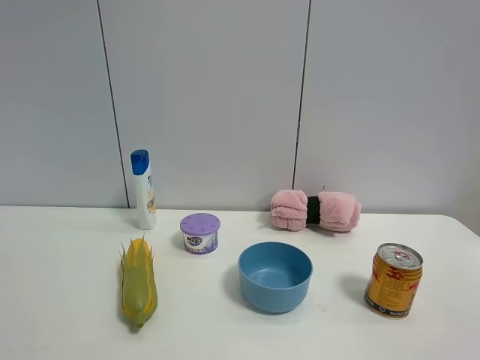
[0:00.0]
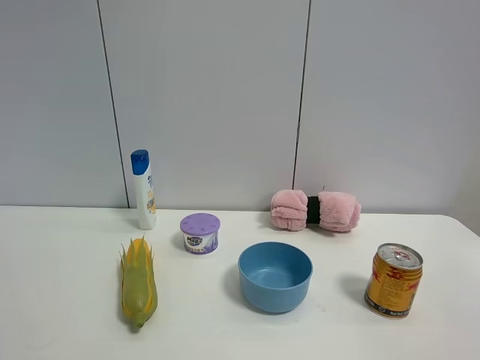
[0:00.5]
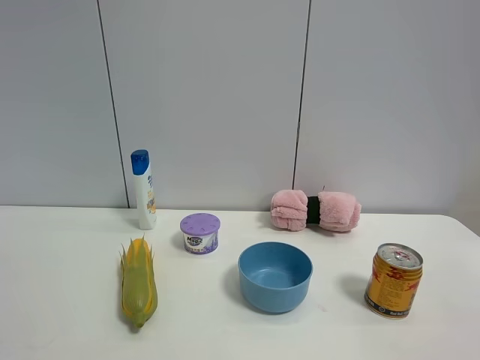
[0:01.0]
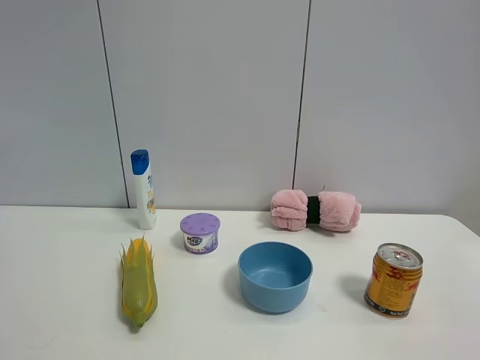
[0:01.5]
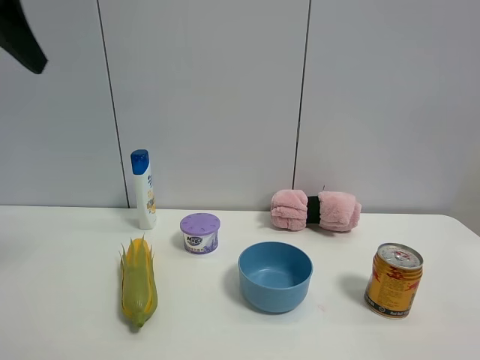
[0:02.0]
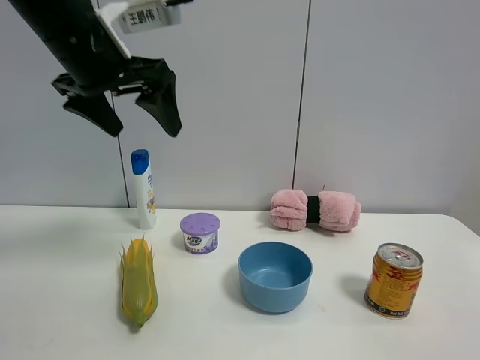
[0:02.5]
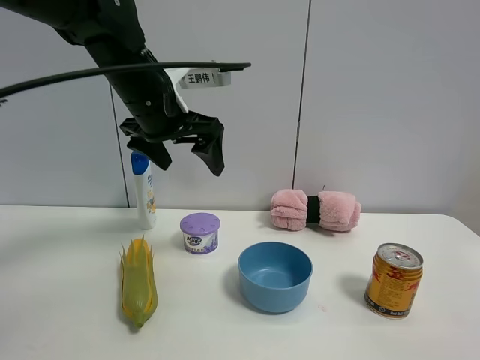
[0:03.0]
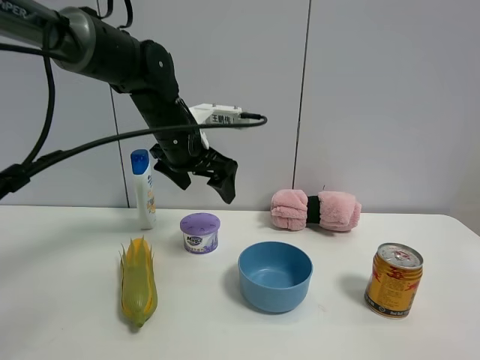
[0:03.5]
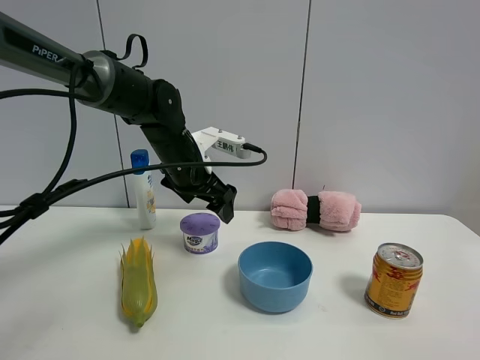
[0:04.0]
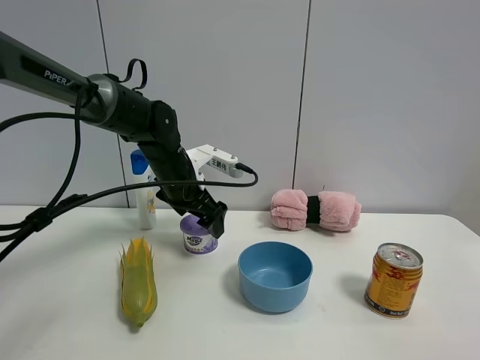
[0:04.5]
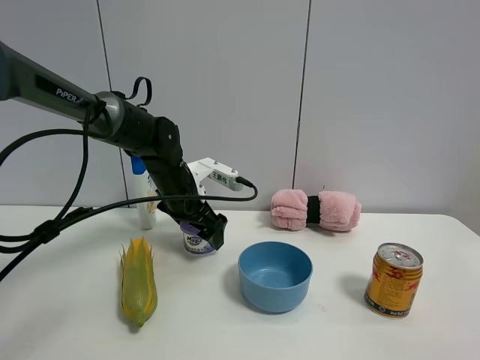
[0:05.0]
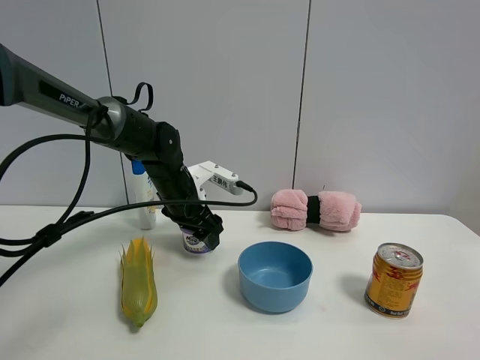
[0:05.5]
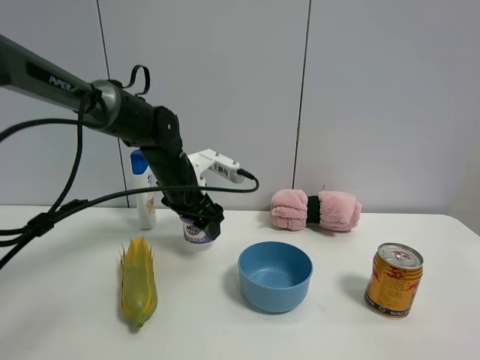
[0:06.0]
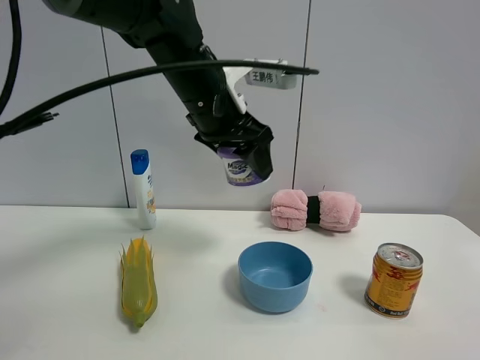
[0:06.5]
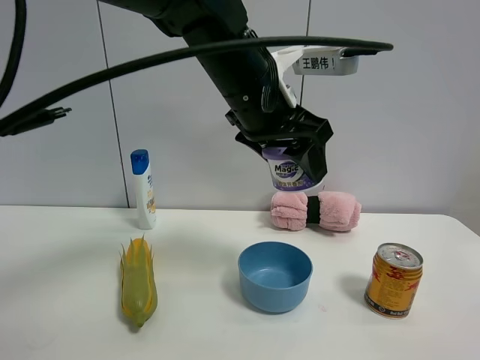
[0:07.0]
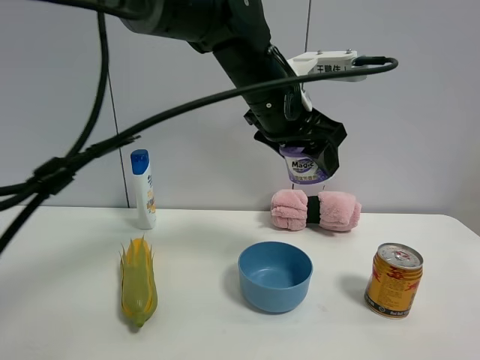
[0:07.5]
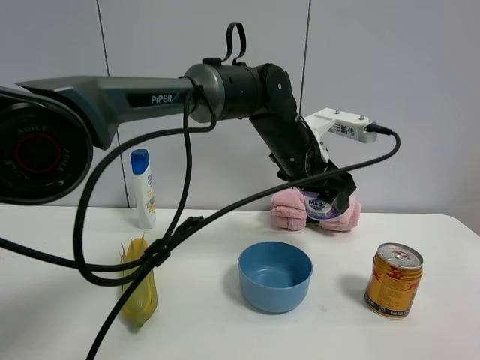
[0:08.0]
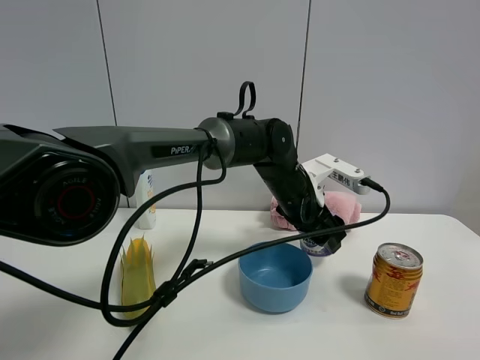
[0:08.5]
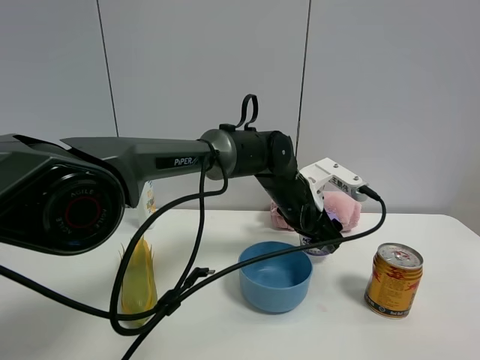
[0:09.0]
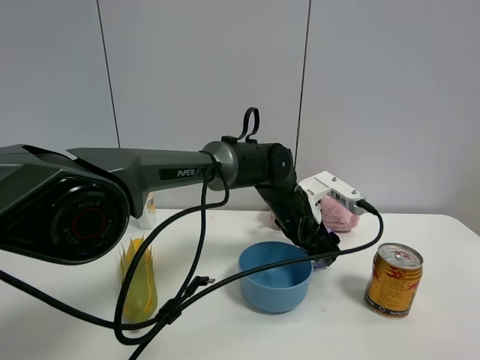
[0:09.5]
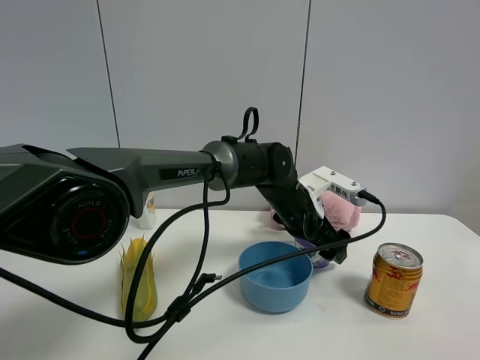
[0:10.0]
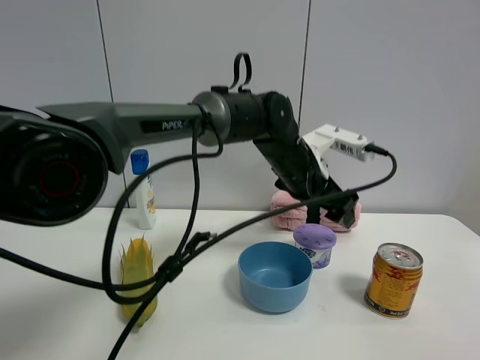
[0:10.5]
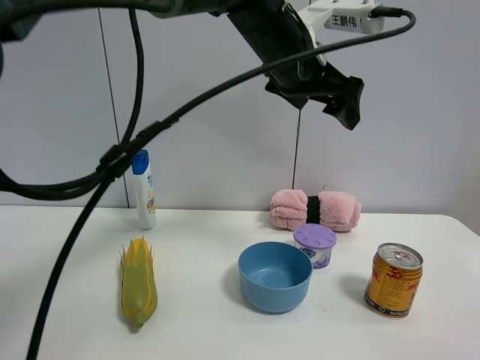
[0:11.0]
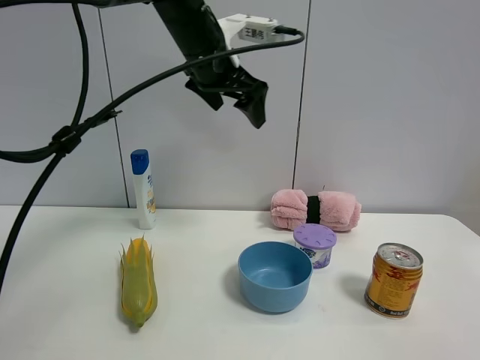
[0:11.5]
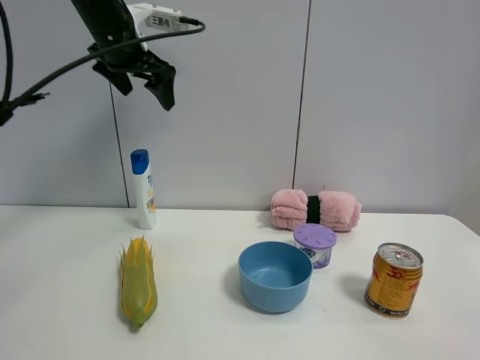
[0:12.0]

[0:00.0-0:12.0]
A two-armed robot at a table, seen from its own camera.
Task of the whole recording: the gripper move the object.
Step, 0:00.0 to 0:05.5: Grasp the Incense box with the left gripper.
Step, 0:06.0 to 0:10.5: Place the Incense box on the table with the left gripper.
0:00.0 to 0:02.0: The left gripper goes roughly 30 cm forward and upward.
0:02.0 to 0:04.0: The left gripper heads downward, forward and to the right, covering approximately 35 cm.
0:04.0 to 0:06.0: The left gripper closes up.
0:06.0 to 0:08.0: The left gripper moves to the right, some 15 cm.
0:08.0 to 0:10.0: The left gripper is displaced downward by approximately 10 cm, and opens.
0:10.0 to 0:12.0: The left gripper is displaced to the left and upward by approximately 40 cm.

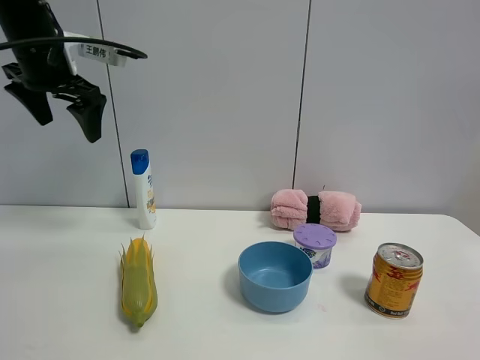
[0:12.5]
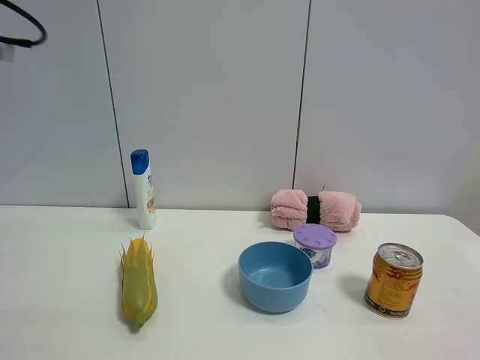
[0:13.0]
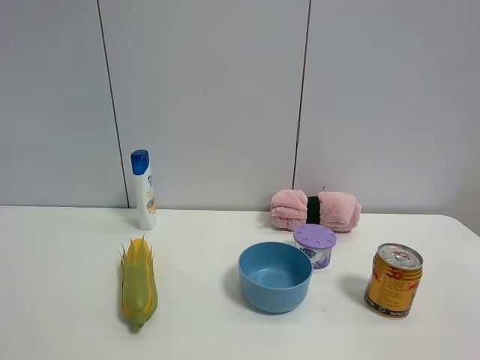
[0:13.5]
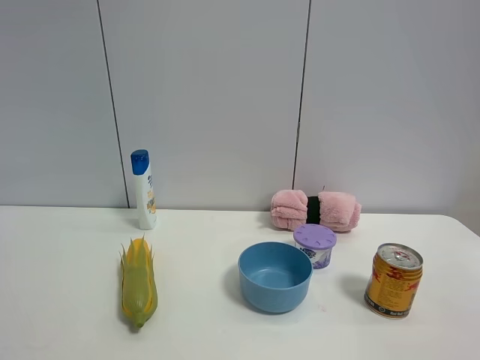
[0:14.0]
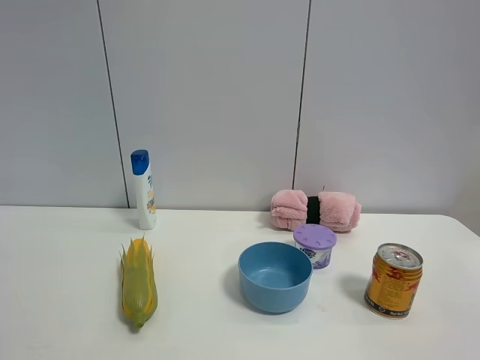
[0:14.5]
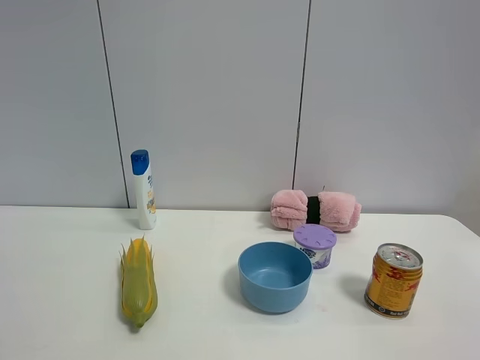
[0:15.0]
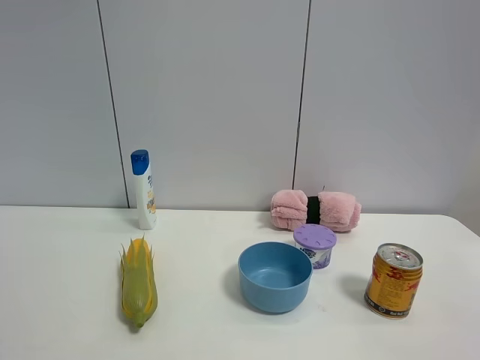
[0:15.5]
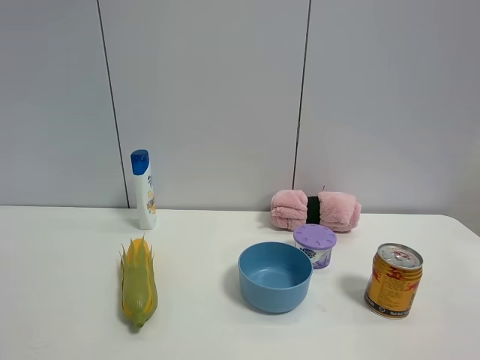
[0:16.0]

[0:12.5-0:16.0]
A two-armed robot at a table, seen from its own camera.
Task of the whole recording: the gripper move the object.
0:12.5 to 0:14.5: The left gripper shifts roughly 40 cm backward.

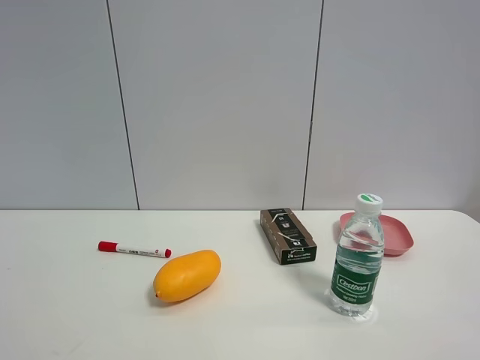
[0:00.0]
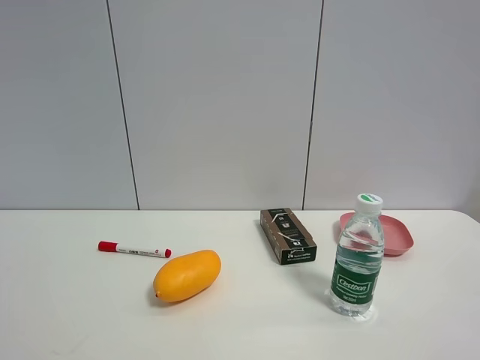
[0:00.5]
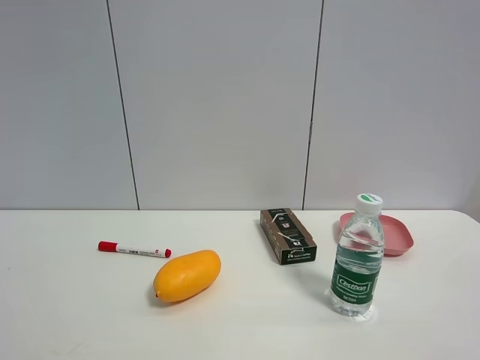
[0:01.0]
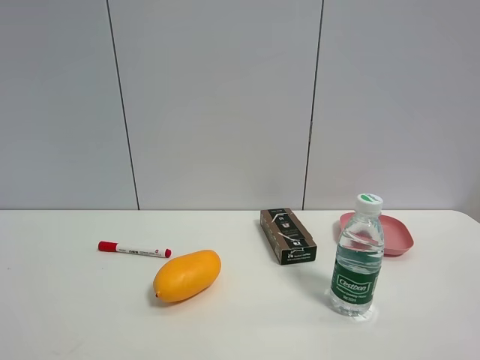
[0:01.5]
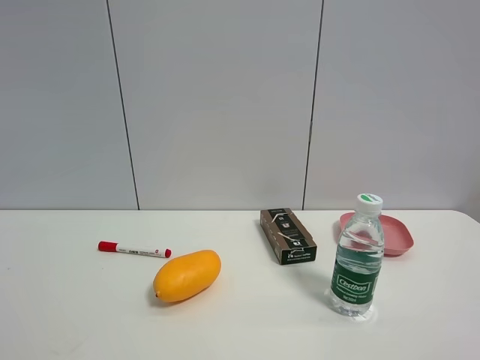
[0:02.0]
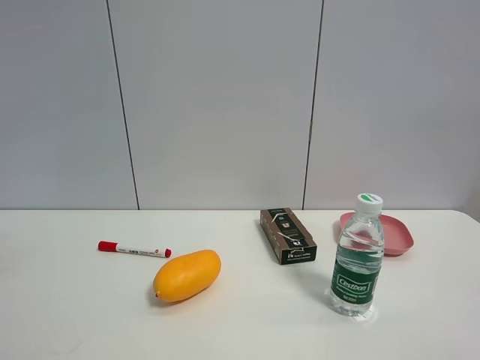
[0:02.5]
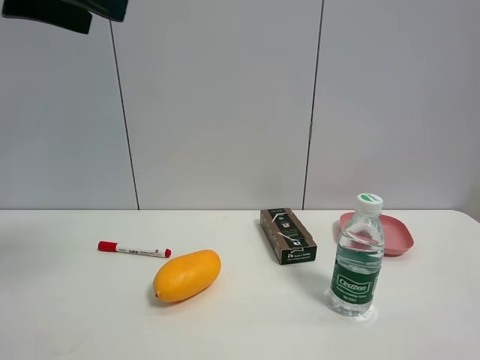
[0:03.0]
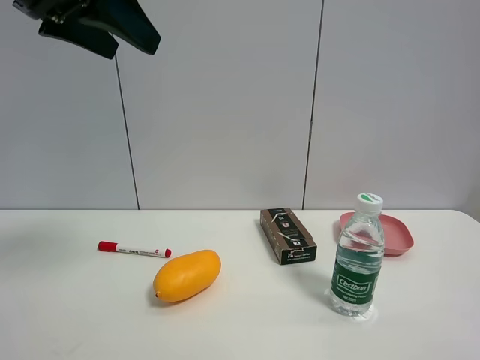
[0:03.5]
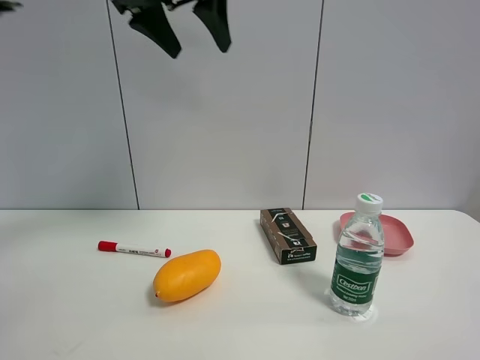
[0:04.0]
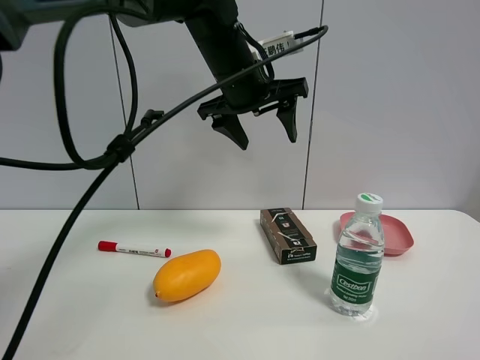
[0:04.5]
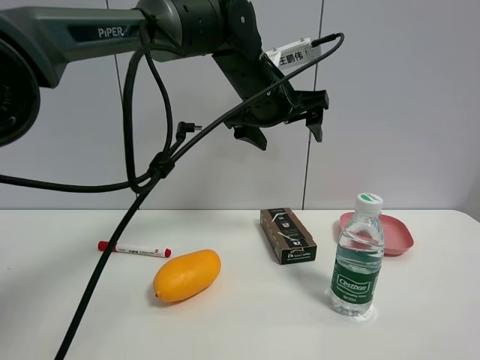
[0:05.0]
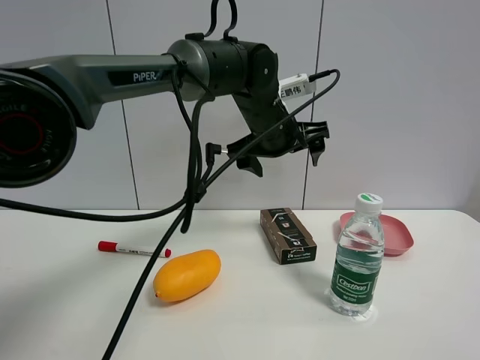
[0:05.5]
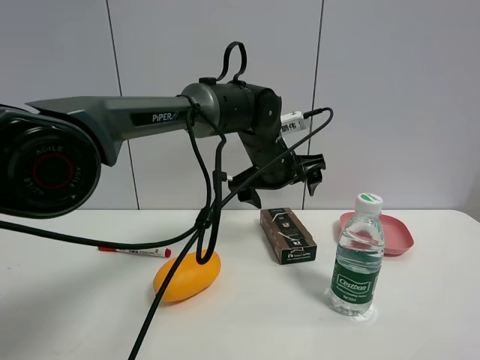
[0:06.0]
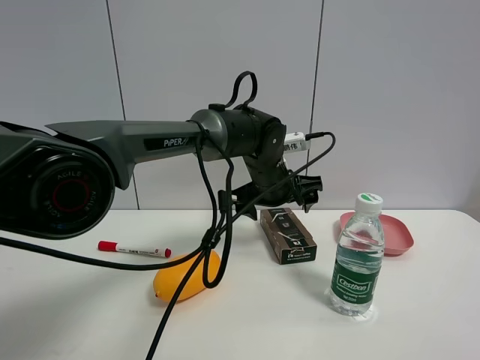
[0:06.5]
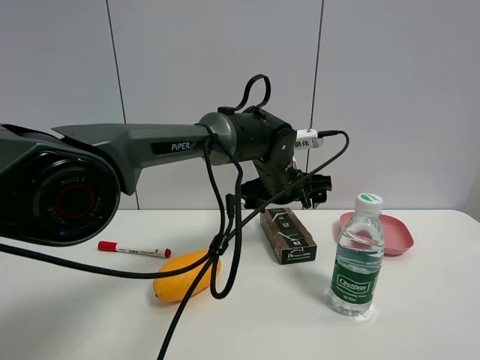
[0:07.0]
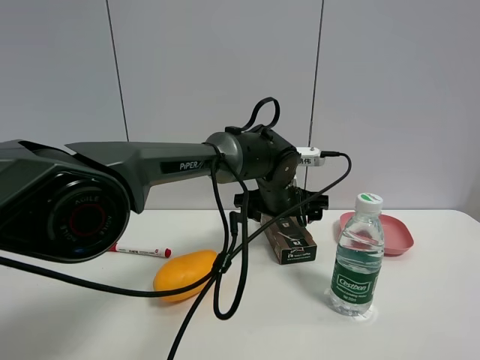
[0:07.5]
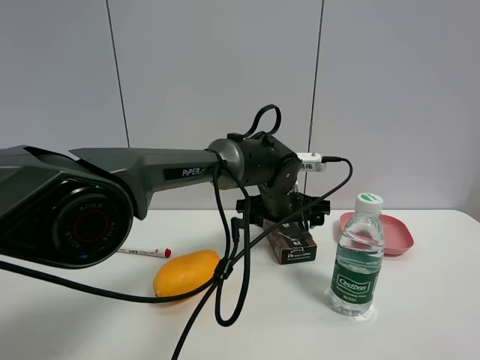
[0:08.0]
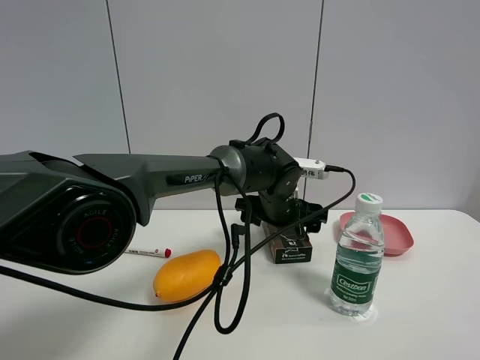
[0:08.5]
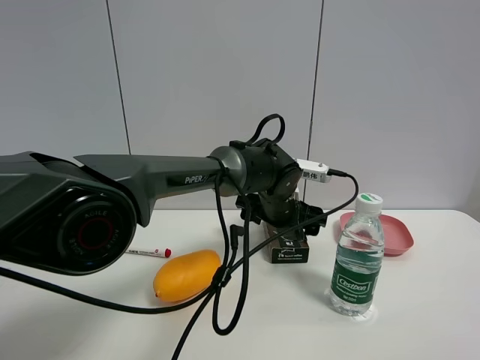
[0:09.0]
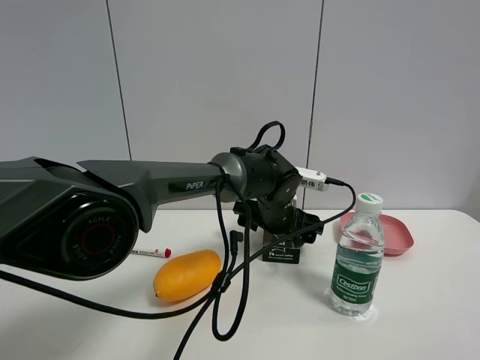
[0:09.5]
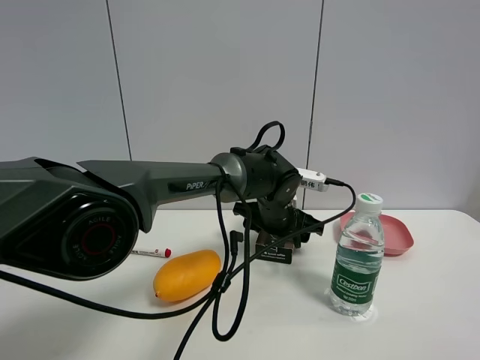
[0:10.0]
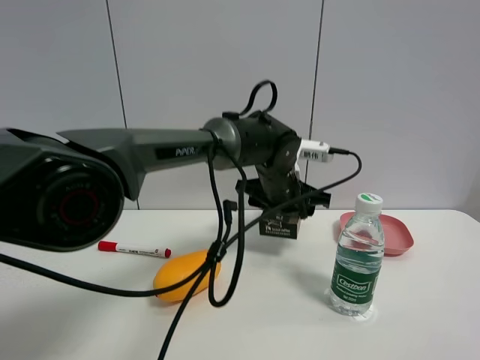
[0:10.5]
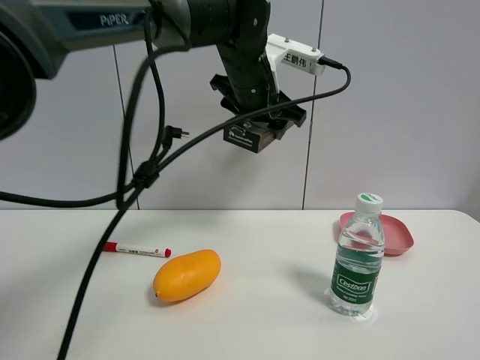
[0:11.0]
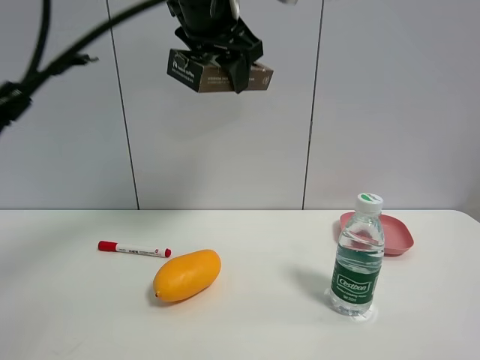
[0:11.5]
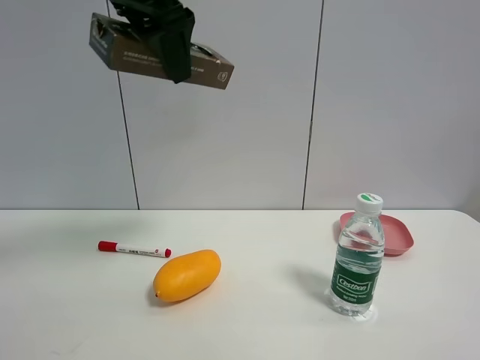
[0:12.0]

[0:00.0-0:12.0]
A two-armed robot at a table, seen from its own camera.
Task of the whole recording: the gripper move the object.
Step, 0:00.0 to 0:10.0: Grasp the brown box with the left gripper.
0:02.0 to 0:04.0: The left gripper shifts some 40 cm forward and to the right.
0:04.0 to 0:06.0: The left gripper goes roughly 30 cm downward and to the right, and opens up.
0:06.0 to 0:08.0: The left gripper shifts roughly 5 cm downward.
0:08.0 to 0:10.0: The left gripper closes up.
0:10.0 to 0:12.0: The left gripper heads upward, to the left and backward, covering some 40 cm.
